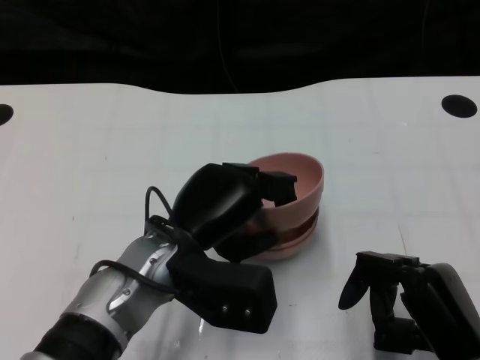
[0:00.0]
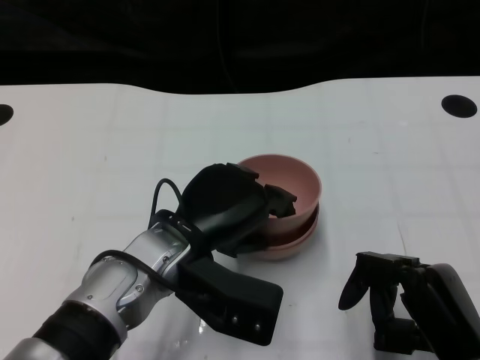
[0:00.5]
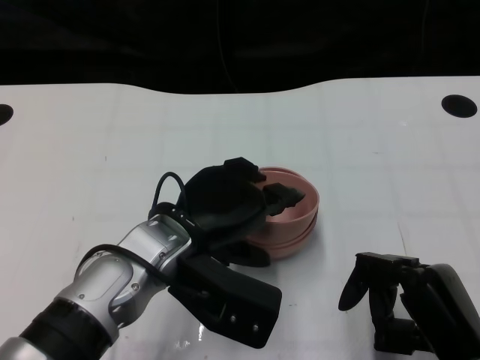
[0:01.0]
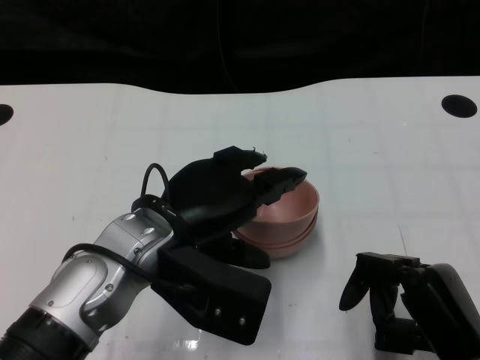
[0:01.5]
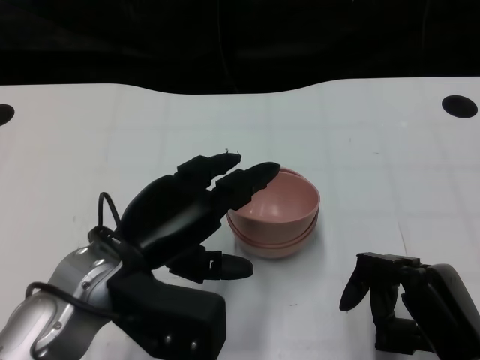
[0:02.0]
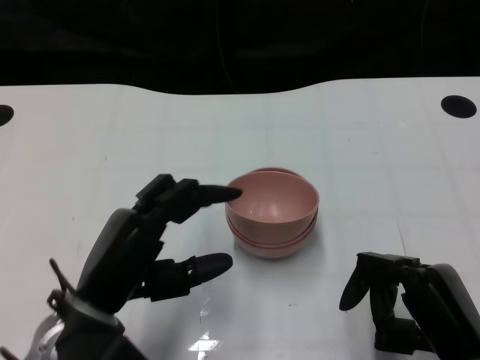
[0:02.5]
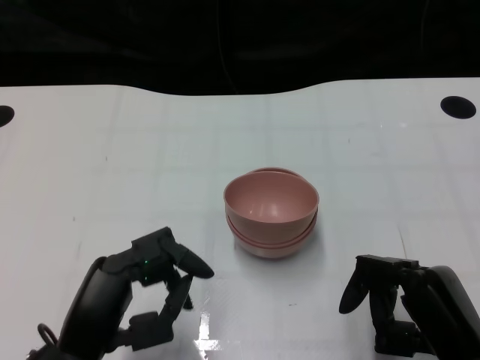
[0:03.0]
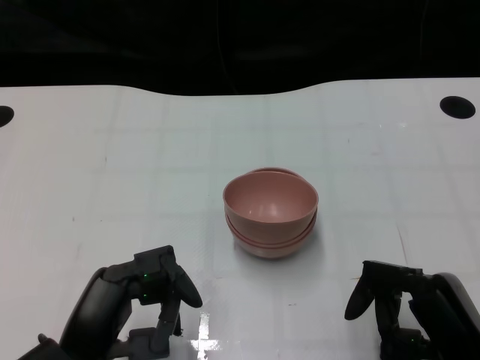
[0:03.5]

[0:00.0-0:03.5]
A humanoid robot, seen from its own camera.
Task of the whole recording: Pick up the bowl on one side of the table and place it on top of the middle bowl, then pick up the bowl on the other side of the table and place it on top of the middle bowls.
Step, 0:00.0 to 0:02.0: Place the bowl on the left onto the bowl in the middle with left gripper.
0:00.0 to 0:02.0: The left hand travels to the left by approximately 5 cm.
0:02.0 to 0:03.5: The left hand moves backward and downward, about 10 cm.

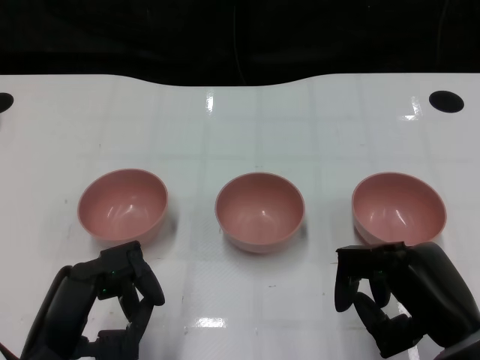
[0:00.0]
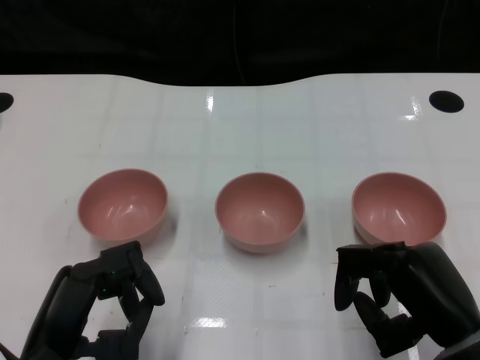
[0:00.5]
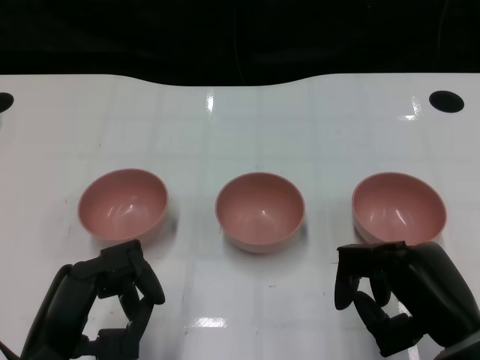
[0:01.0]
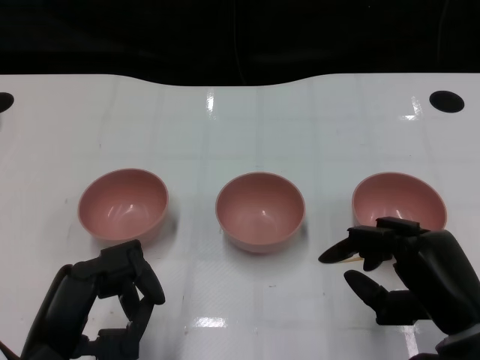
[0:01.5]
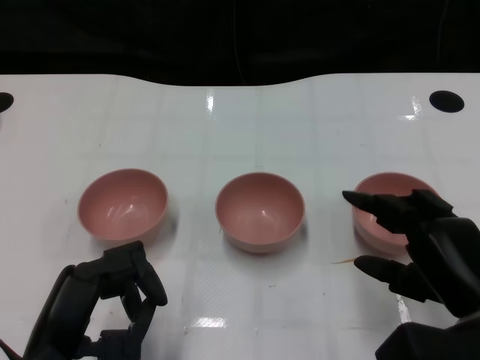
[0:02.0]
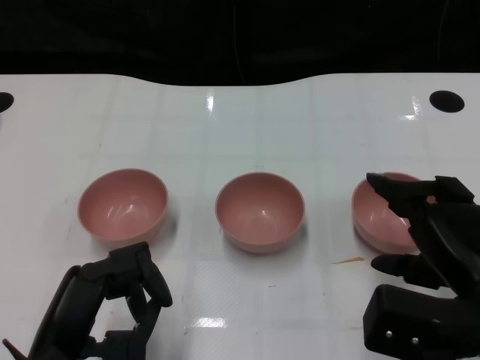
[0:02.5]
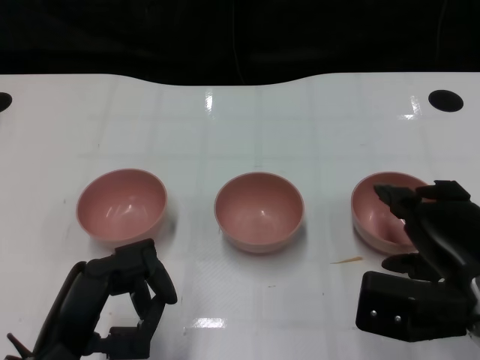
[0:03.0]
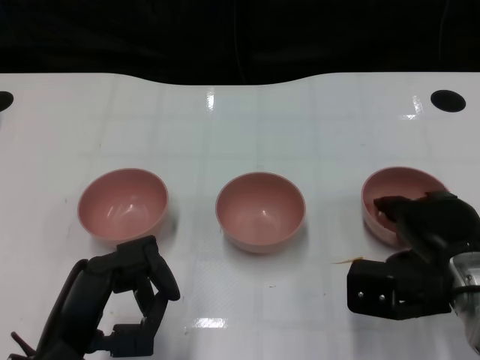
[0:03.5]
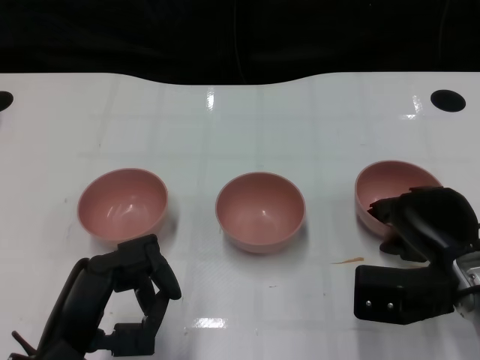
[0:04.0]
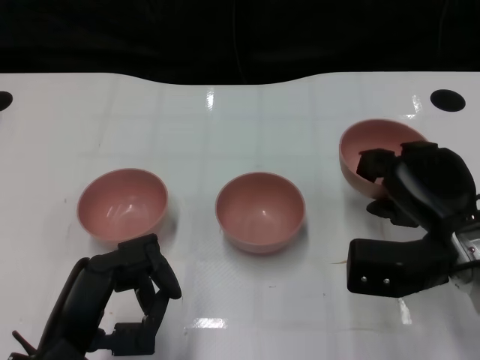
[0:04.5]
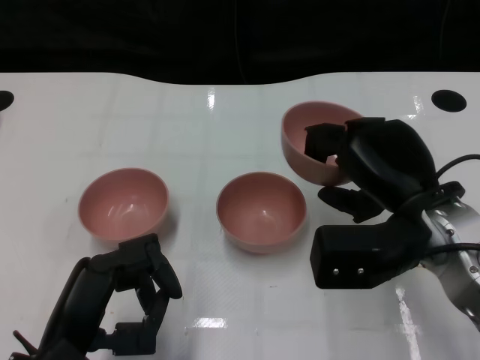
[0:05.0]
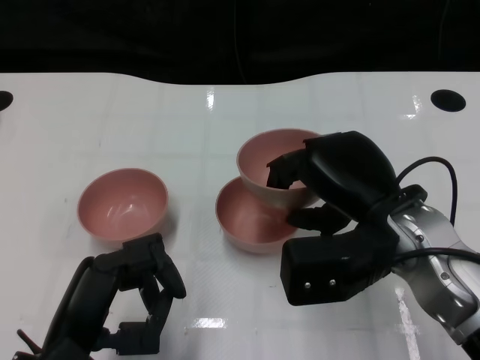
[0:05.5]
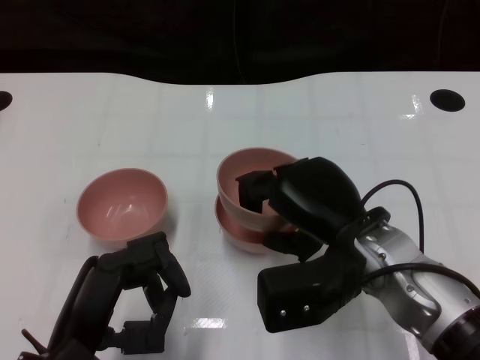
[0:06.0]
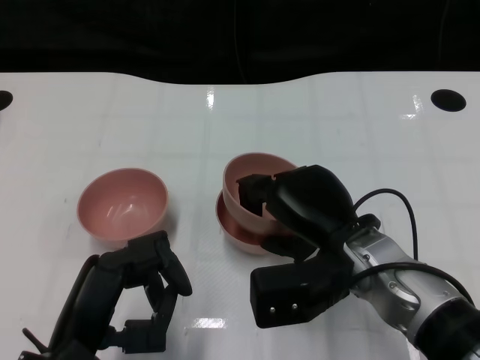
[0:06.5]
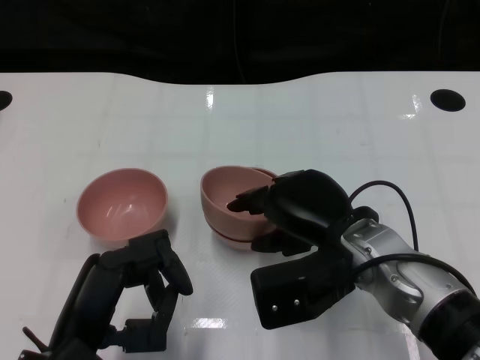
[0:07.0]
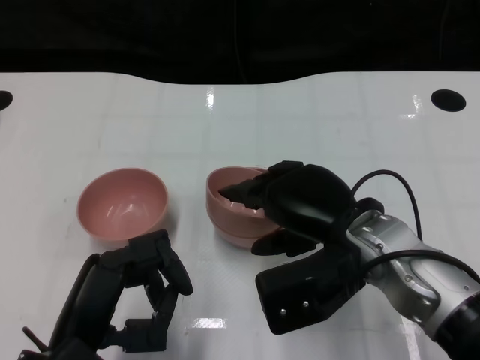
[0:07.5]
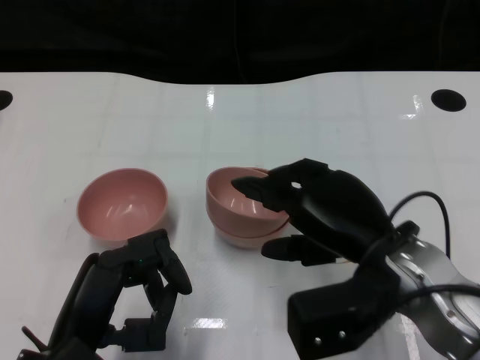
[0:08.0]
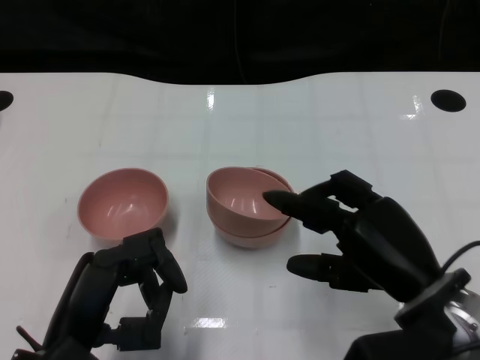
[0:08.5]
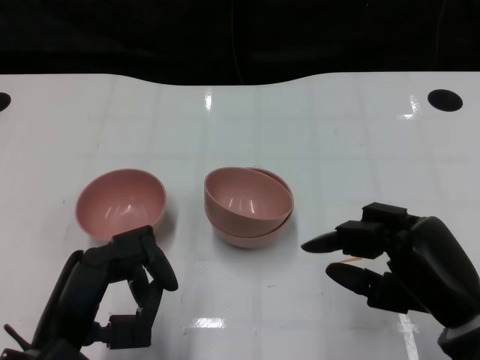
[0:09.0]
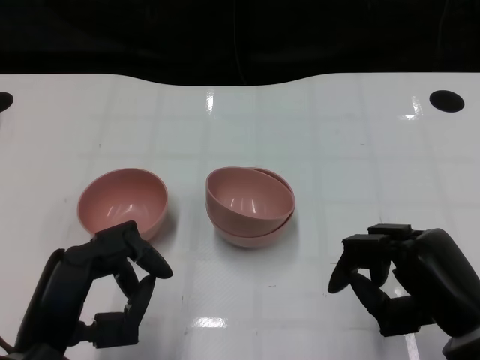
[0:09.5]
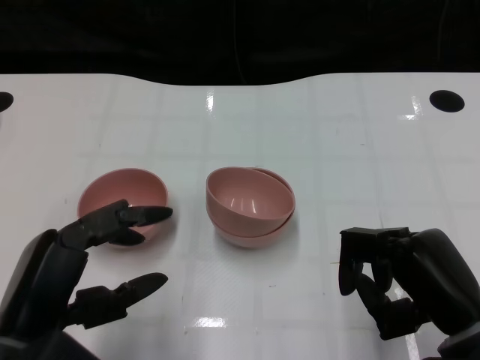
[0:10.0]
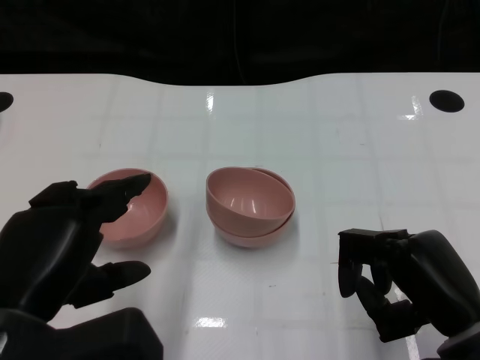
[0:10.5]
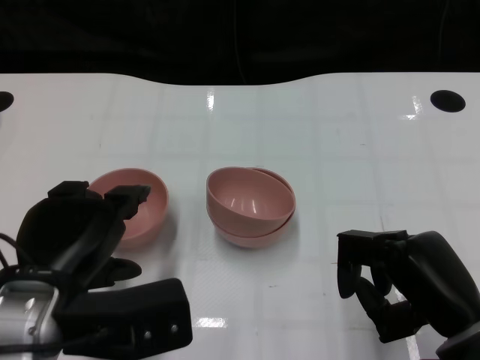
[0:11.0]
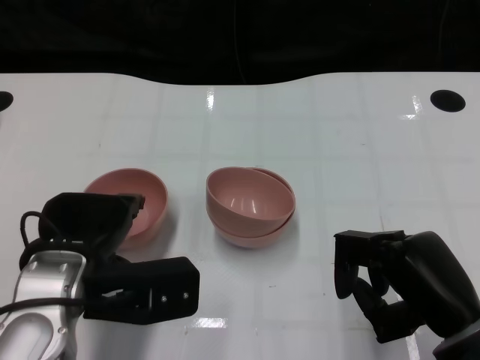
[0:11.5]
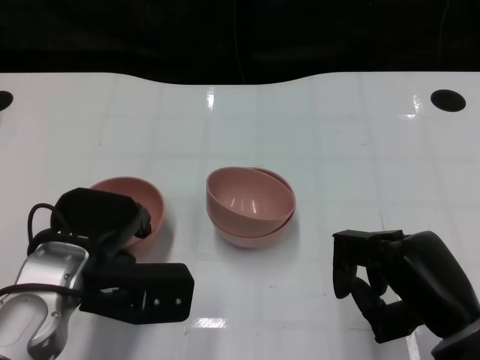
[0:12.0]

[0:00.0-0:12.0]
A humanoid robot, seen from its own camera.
Task of the whole recording: Pick up the bowl on one side of the table and place it on top of the middle bowl, then pick up the bowl on the other side of the table and place it on top of the middle bowls.
Step, 0:01.5 to 0:04.0: Grasp the bowl on the right with the right gripper.
Step, 0:04.5 to 0:08.0: Place the bowl on the right onto the bowl in the middle with right gripper.
0:02.0 to 0:04.0: The right hand goes about 10 cm forward.
0:04.0 to 0:06.0: The right hand moves to the left and upward, roughly 10 cm.
0:06.0 to 0:08.0: The hands move only a little.
0:08.0 to 0:10.0: The right hand heads to the right and backward, covering roughly 10 cm.
0:10.0 to 0:12.0: The left hand heads forward, covering some 10 cm.

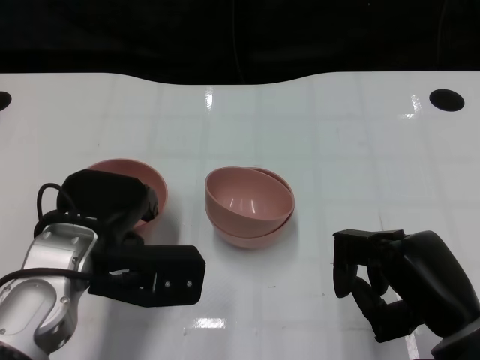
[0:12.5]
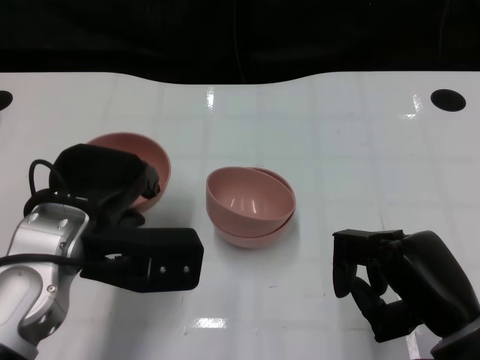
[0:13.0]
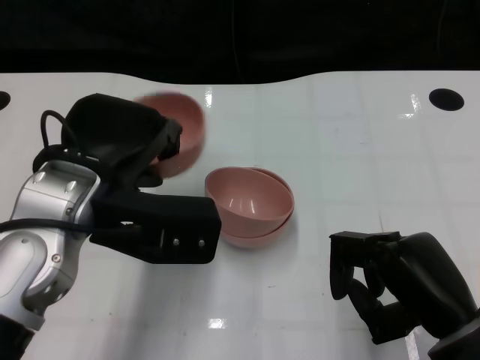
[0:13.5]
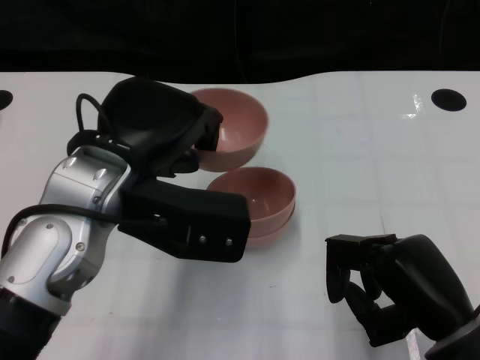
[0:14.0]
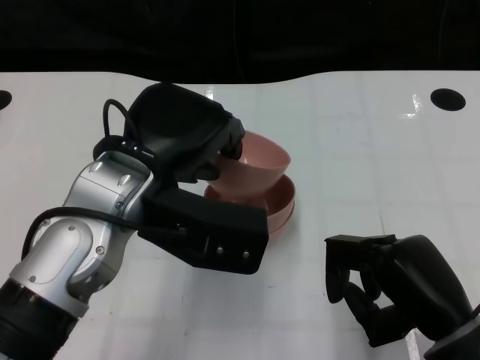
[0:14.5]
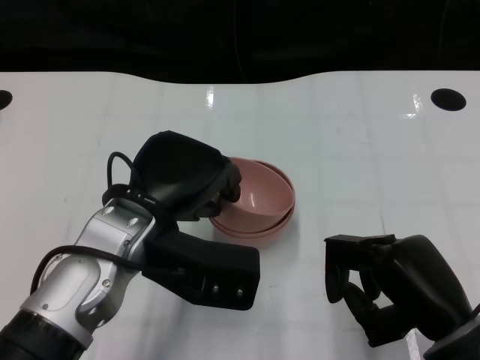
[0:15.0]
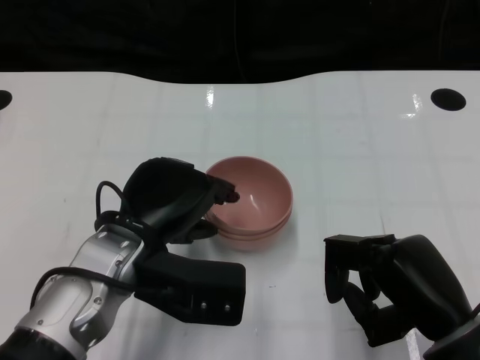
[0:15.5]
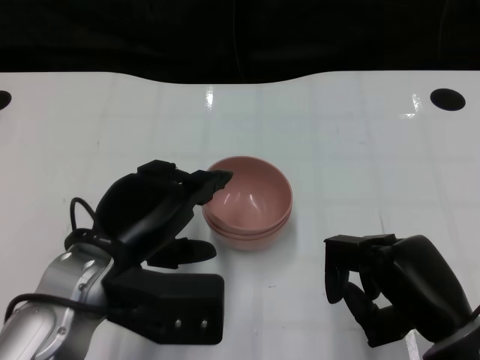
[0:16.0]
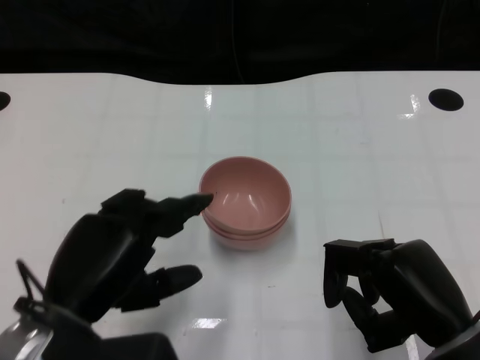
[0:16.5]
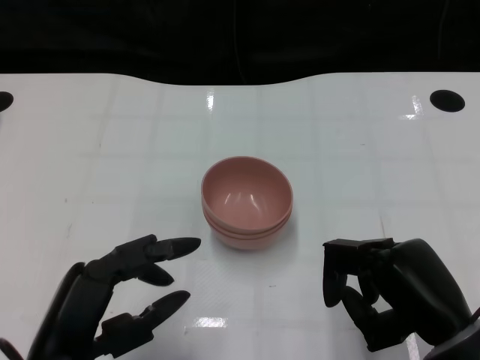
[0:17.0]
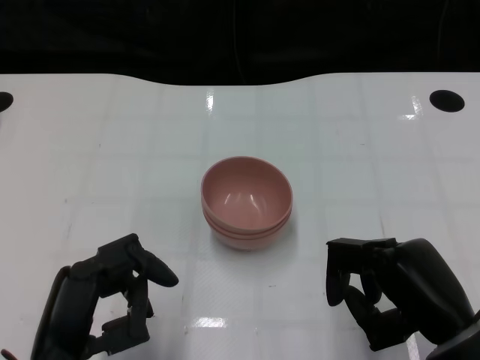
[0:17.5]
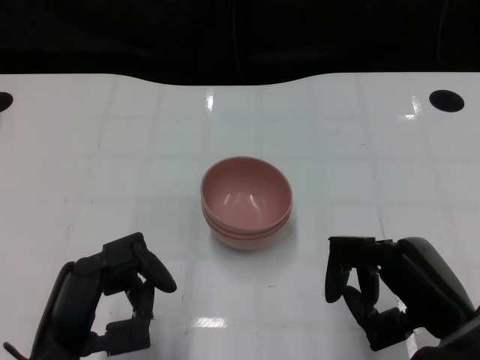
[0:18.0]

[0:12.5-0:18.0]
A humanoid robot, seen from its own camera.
Task of the whole recording: Pick up the bowl on one side of the table and place it on top of the middle bowl, then pick up the bowl on the other side of the table and place it on top of the middle bowls.
Step, 0:12.5 to 0:16.0: Place the bowl on the left onto the bowl in the middle with left gripper.
0:12.5 to 0:14.5: The left hand shifts some 10 cm upward and to the right.
0:14.5 to 0:16.0: The left hand moves downward, some 5 cm.
0:16.0 to 0:18.0: The left hand heads backward, covering some 10 cm.

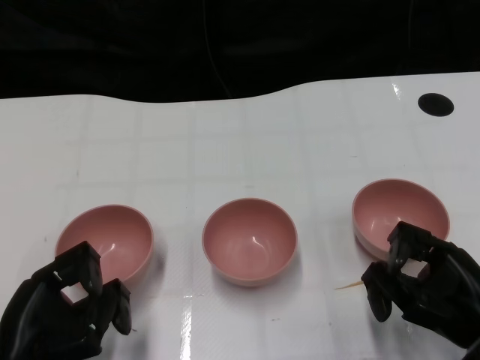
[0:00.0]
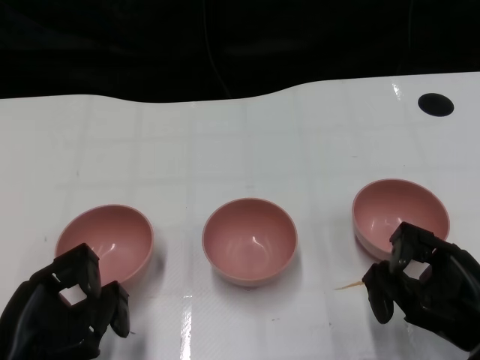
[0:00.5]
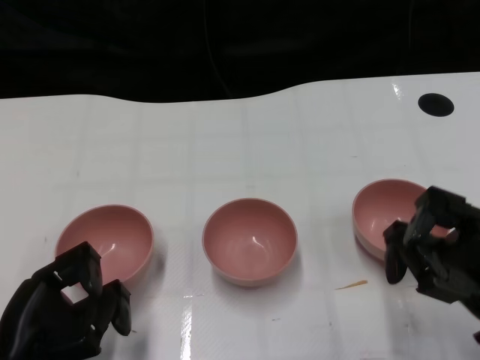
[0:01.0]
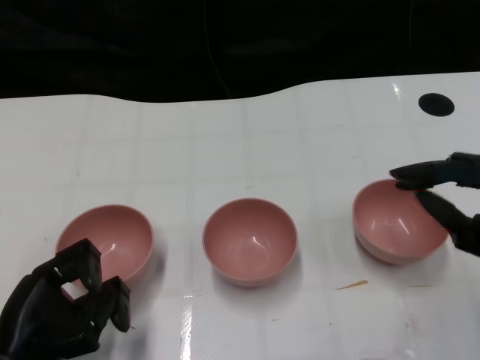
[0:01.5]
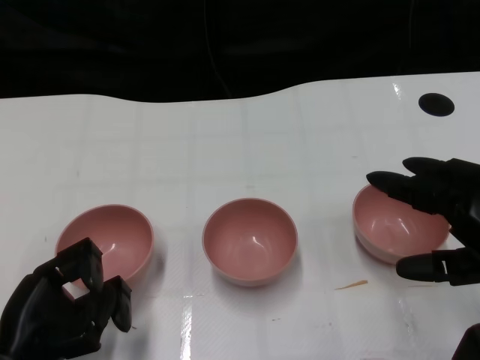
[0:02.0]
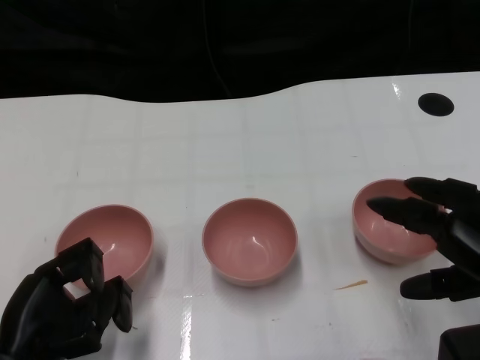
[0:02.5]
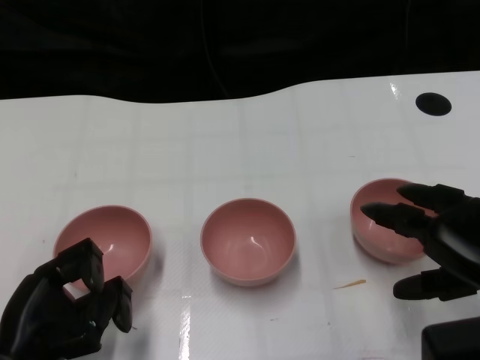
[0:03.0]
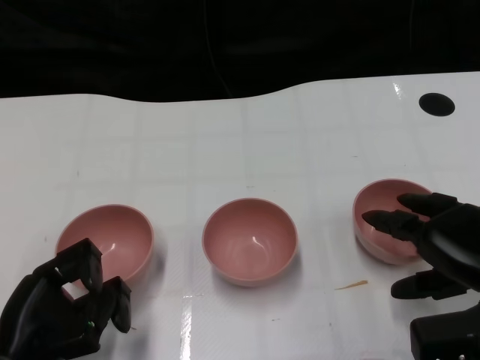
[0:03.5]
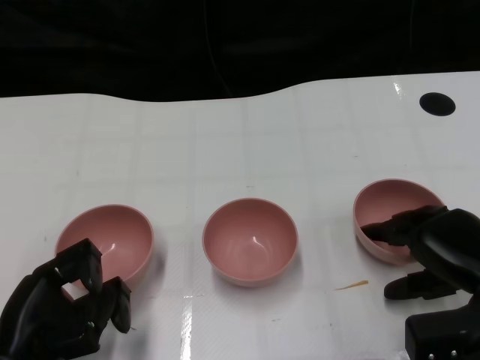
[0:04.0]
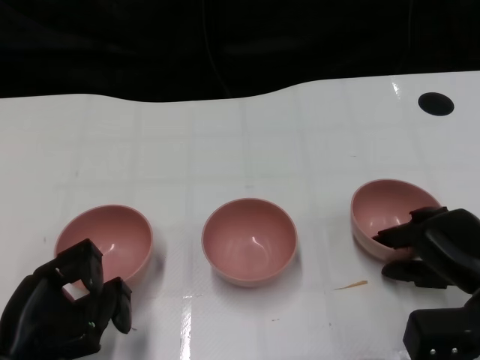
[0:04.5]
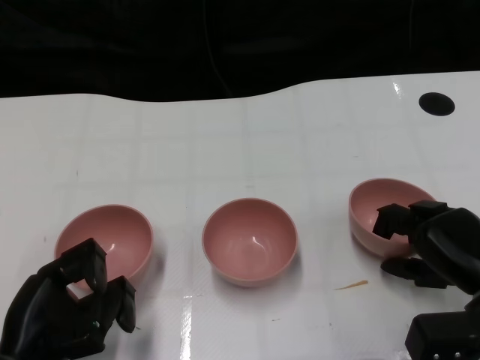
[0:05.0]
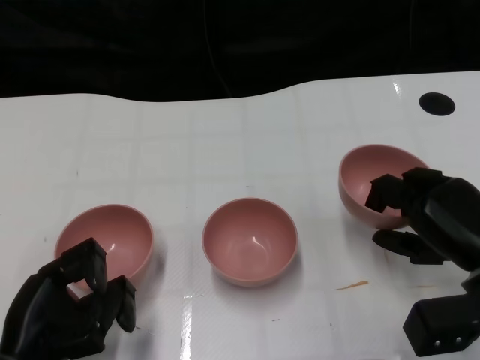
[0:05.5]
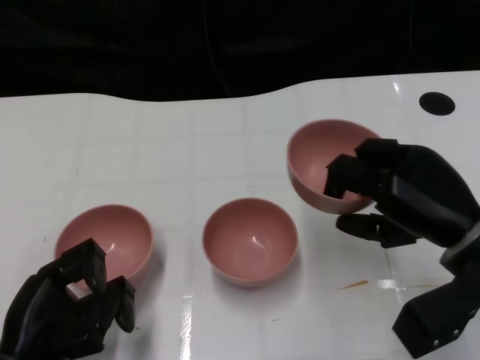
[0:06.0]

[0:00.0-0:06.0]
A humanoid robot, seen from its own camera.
Task of the whole recording: Pick up the bowl on one side of the table and place it on top of the middle bowl, then pick up the bowl on the other side of the table and place it on top of the middle bowls.
Step, 0:01.0 to 0:05.0: Grasp the bowl on the right with the right gripper.
0:02.0 to 0:04.0: The right hand moves downward, some 10 cm.
0:04.0 to 0:06.0: The right hand goes approximately 5 cm upward.
